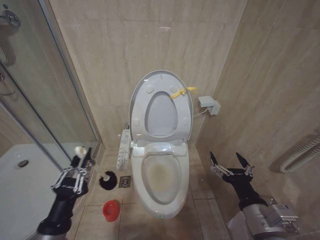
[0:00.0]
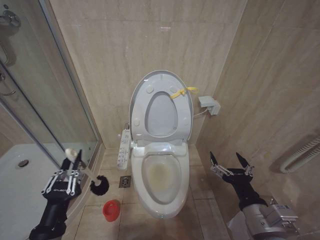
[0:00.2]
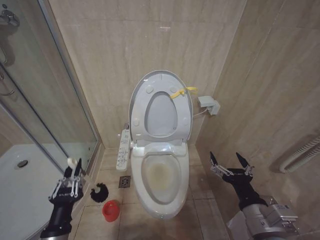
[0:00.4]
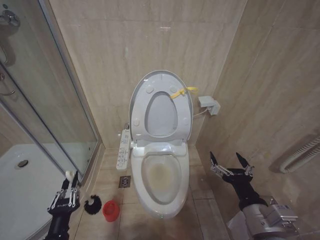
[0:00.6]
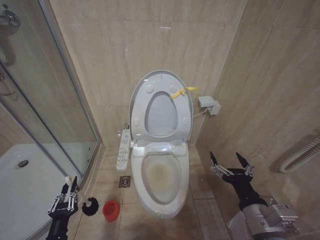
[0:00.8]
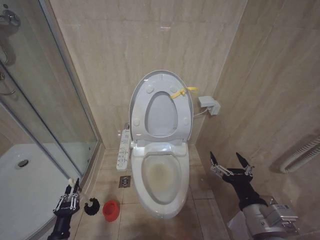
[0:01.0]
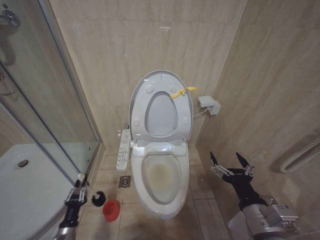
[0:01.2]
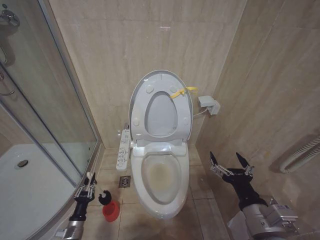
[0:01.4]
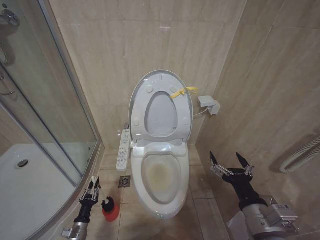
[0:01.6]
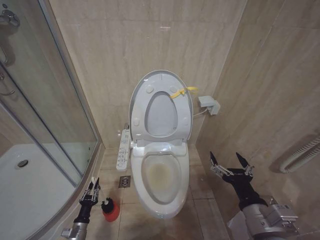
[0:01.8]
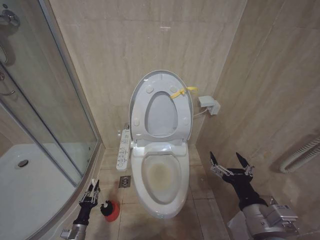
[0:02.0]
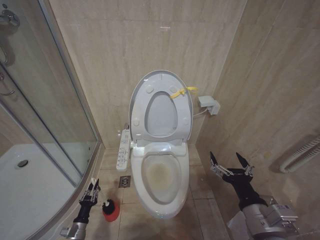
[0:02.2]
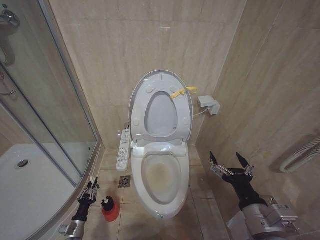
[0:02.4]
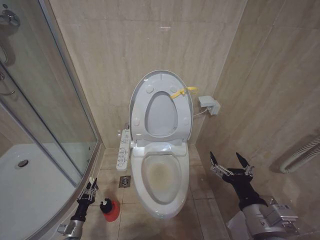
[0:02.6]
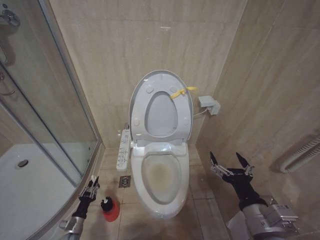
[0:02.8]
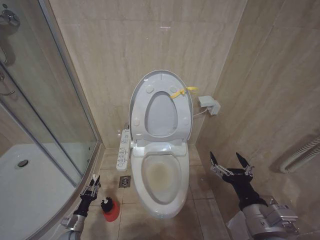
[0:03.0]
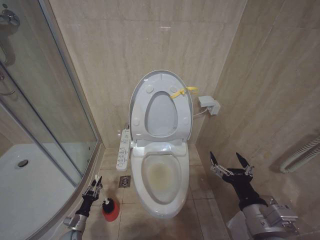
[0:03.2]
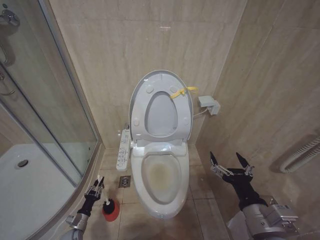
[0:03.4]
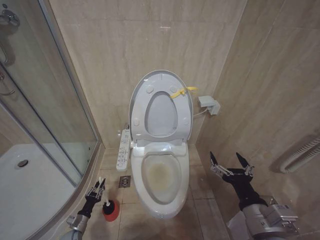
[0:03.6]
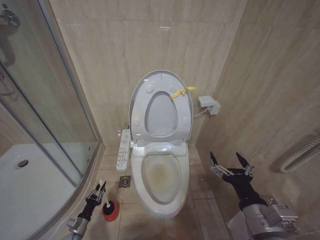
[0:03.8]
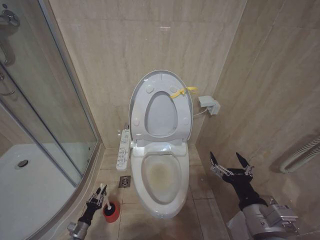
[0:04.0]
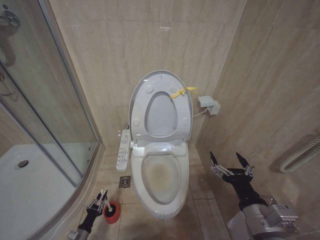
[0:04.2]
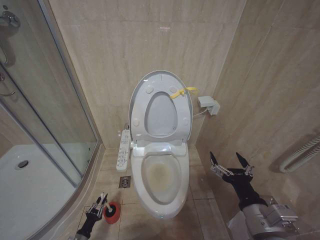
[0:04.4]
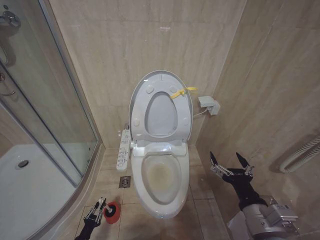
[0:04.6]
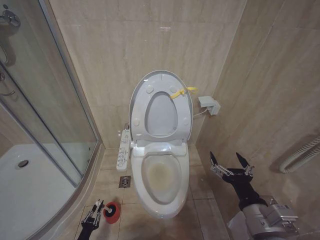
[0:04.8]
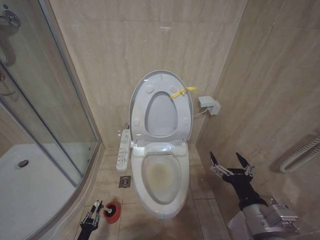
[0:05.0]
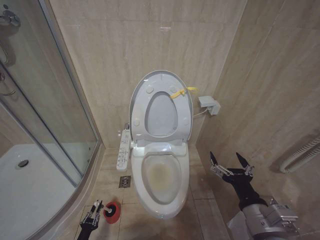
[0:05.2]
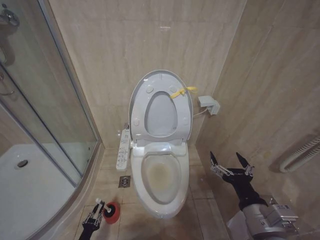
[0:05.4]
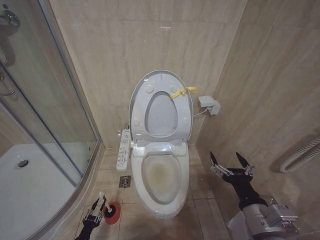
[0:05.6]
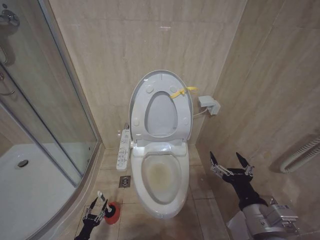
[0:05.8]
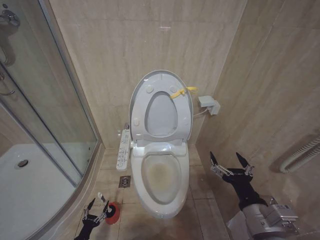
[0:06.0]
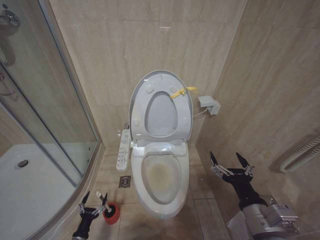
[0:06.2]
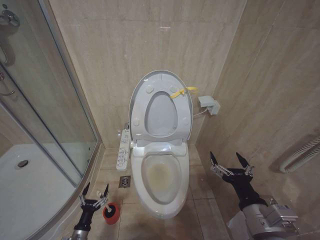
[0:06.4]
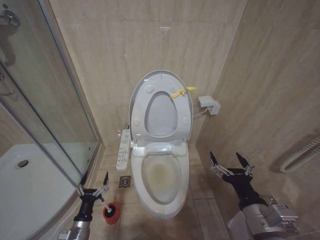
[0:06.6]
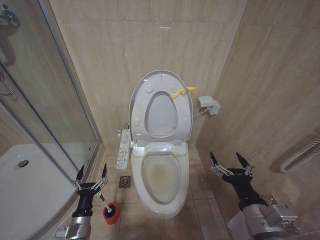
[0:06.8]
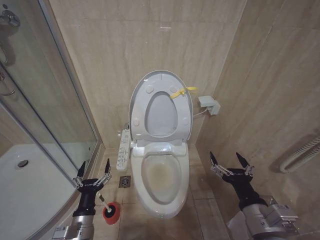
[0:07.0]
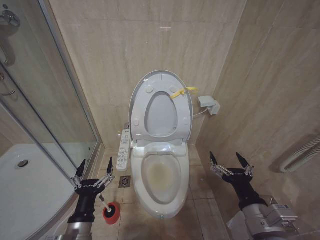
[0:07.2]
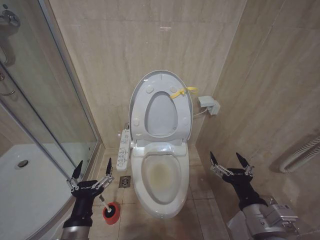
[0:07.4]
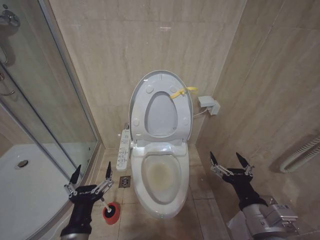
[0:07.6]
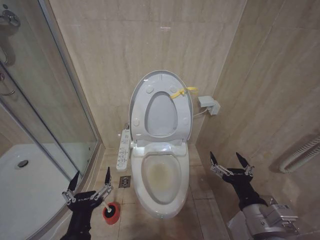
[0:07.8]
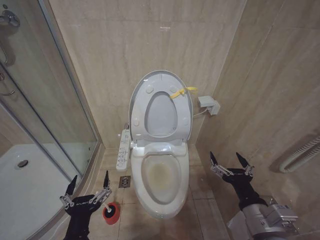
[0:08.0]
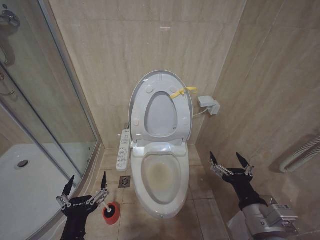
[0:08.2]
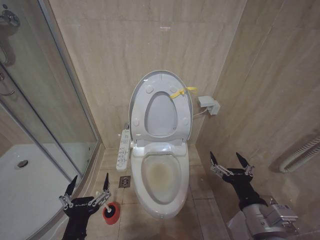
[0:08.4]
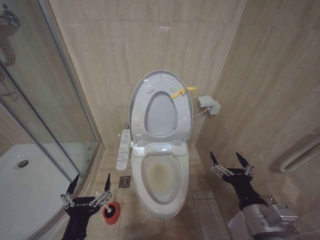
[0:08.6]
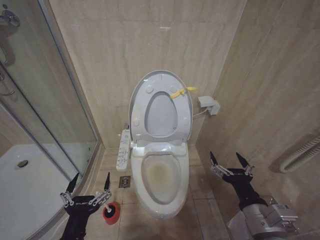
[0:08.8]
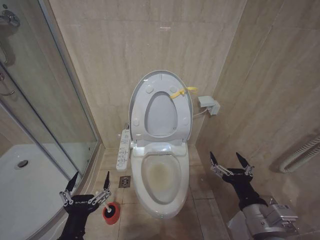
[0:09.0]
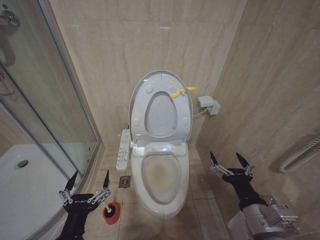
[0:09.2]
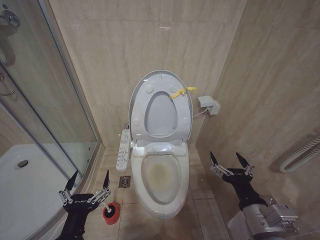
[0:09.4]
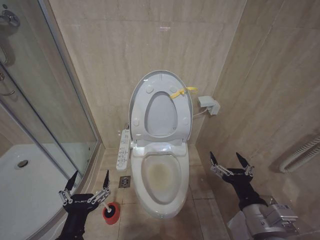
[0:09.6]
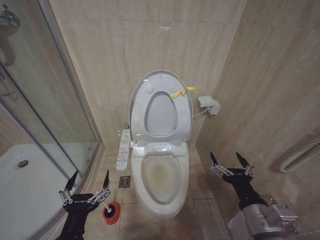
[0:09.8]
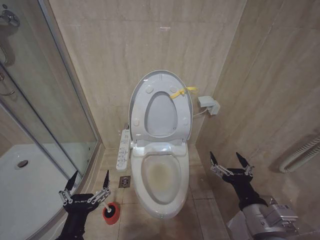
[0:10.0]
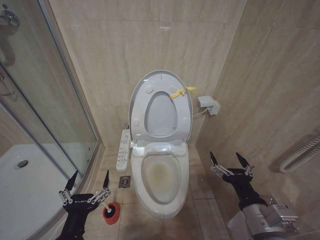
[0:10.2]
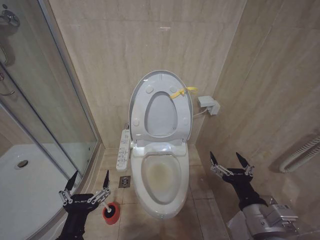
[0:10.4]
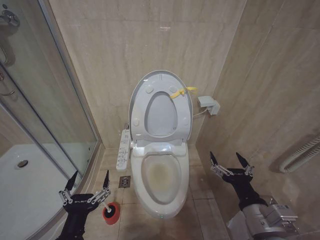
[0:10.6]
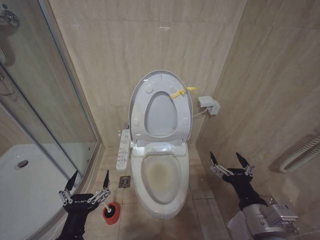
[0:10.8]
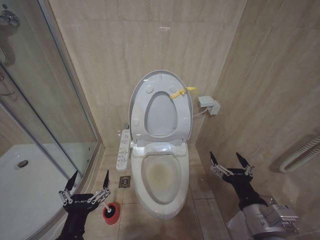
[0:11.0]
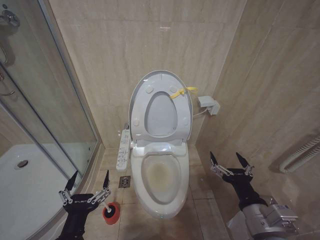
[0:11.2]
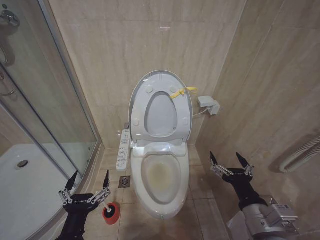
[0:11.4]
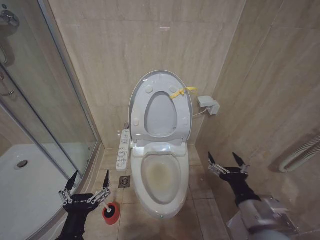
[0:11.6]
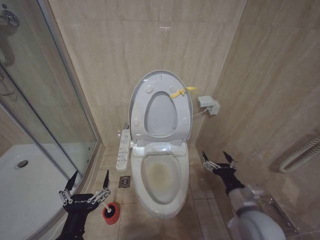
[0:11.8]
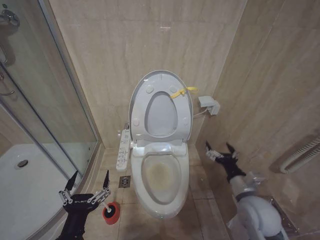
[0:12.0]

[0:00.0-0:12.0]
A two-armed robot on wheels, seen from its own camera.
Task of the whole recording: Open the toilet lid, clean the toilet bowl with a toilet brush, close the toilet lid, and flush.
0:00.0 to 0:01.6: The left gripper heads downward, covering roughly 30 cm.
0:01.6 to 0:03.0: The left gripper moves about 5 cm.
0:03.0 to 0:04.4: The left gripper heads backward, covering some 5 cm.
0:04.4 to 0:06.0: The left gripper opens its fingers.
0:06.0 to 0:07.6: The left gripper heads upward and to the right, covering roughly 40 cm, and opens its fingers.
0:07.6 to 0:09.0: The grippers move only a little.
0:09.0 to 0:10.4: The two grippers keep their place.
0:10.4 to 0:12.0: The right gripper goes roughly 10 cm forward and downward.

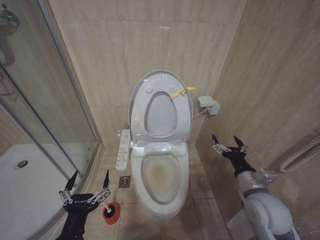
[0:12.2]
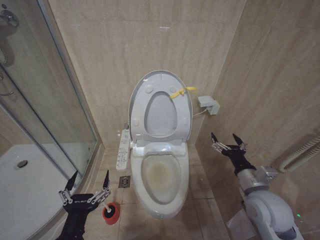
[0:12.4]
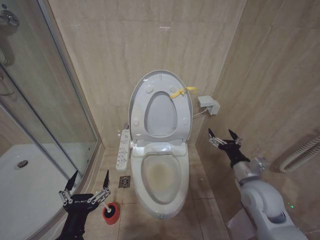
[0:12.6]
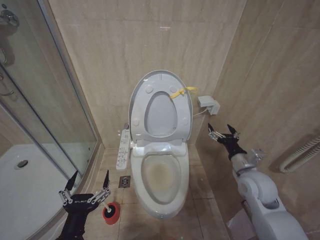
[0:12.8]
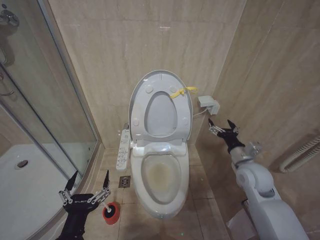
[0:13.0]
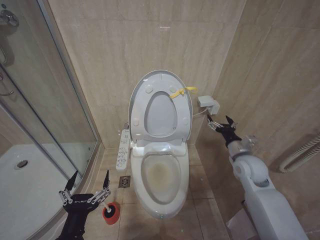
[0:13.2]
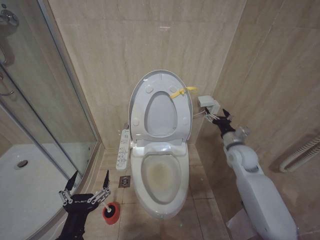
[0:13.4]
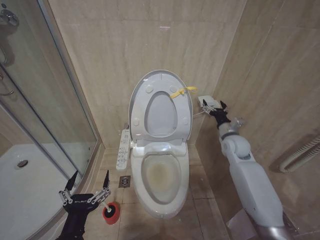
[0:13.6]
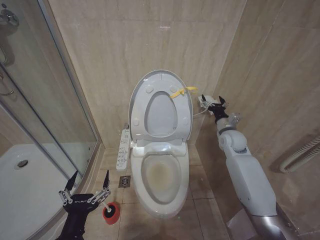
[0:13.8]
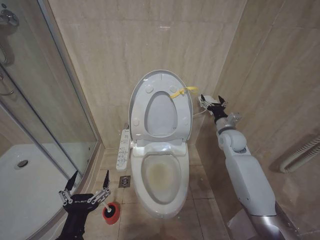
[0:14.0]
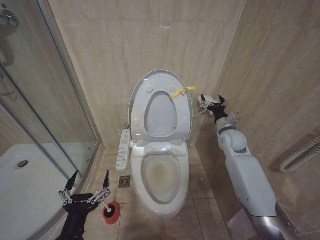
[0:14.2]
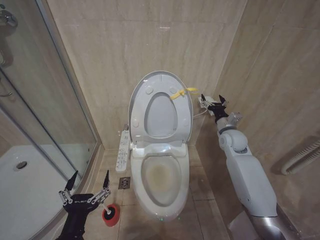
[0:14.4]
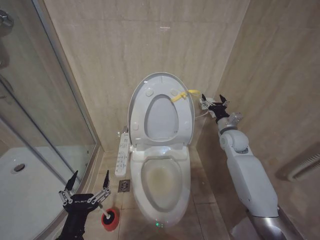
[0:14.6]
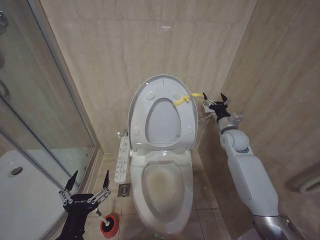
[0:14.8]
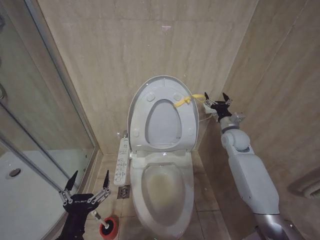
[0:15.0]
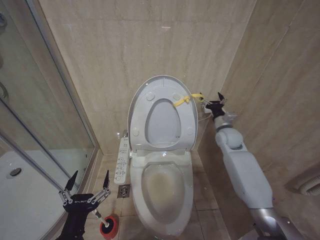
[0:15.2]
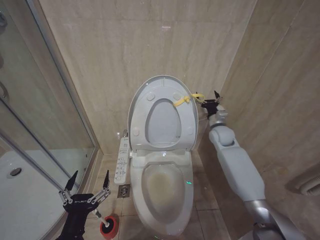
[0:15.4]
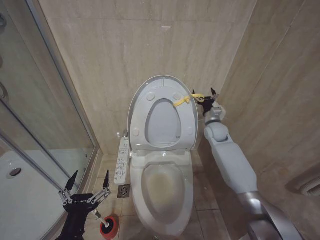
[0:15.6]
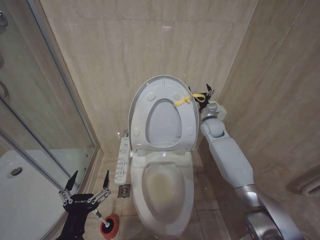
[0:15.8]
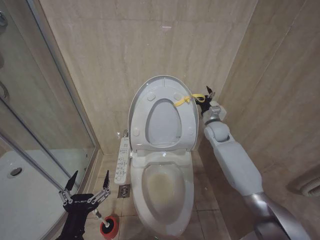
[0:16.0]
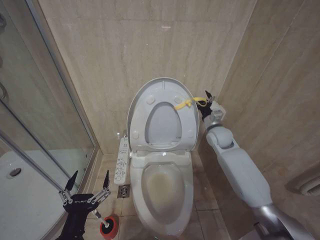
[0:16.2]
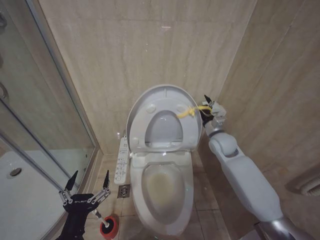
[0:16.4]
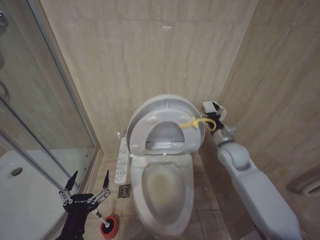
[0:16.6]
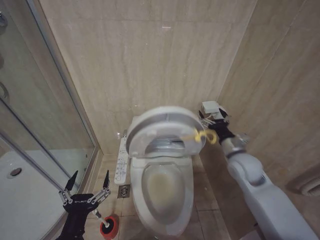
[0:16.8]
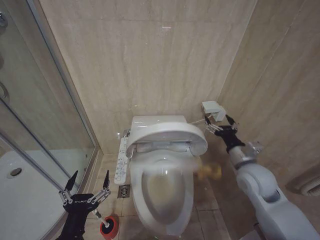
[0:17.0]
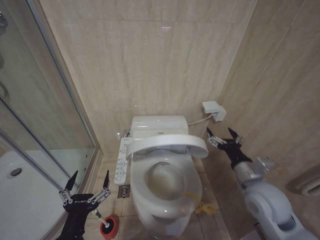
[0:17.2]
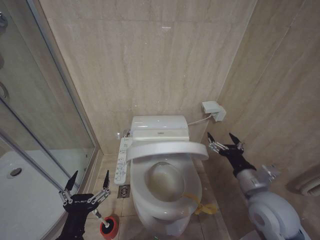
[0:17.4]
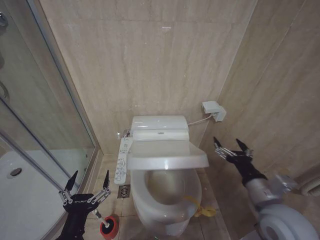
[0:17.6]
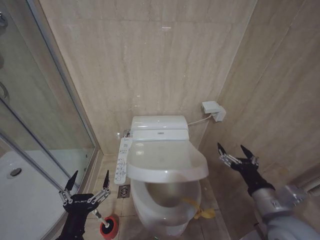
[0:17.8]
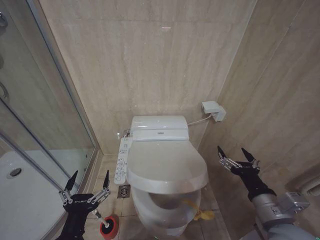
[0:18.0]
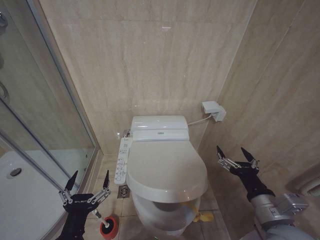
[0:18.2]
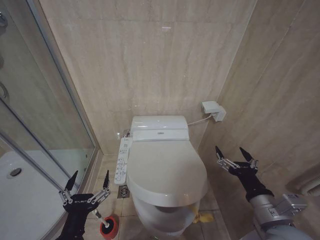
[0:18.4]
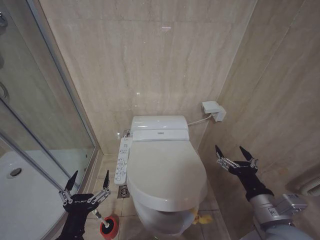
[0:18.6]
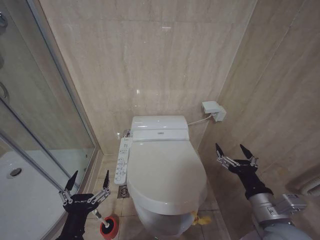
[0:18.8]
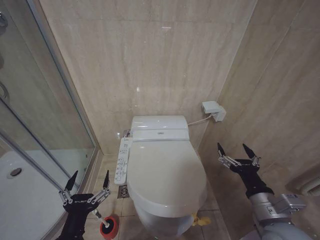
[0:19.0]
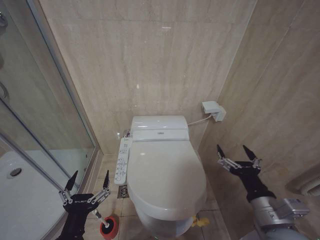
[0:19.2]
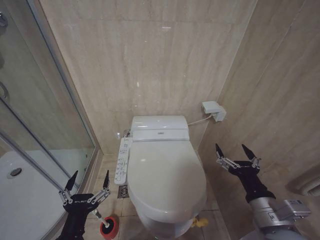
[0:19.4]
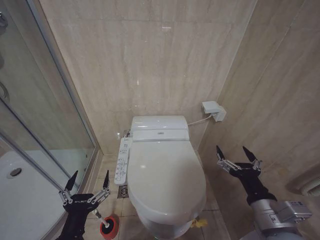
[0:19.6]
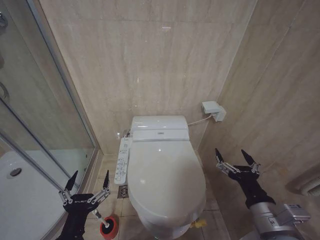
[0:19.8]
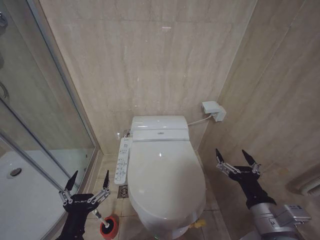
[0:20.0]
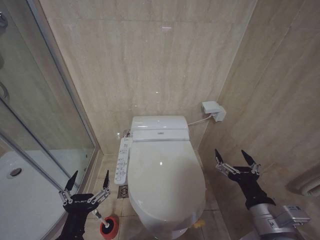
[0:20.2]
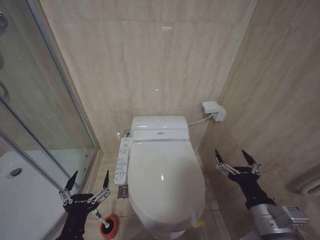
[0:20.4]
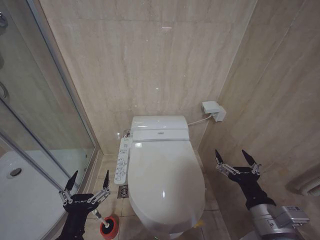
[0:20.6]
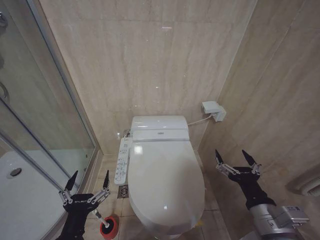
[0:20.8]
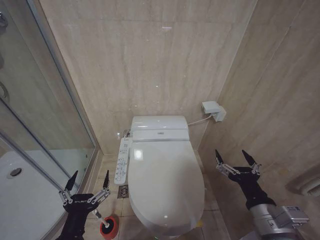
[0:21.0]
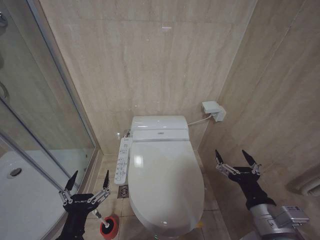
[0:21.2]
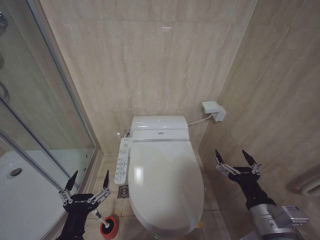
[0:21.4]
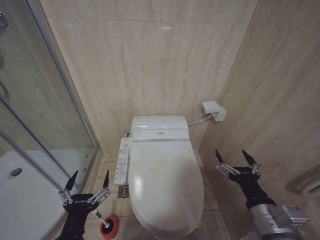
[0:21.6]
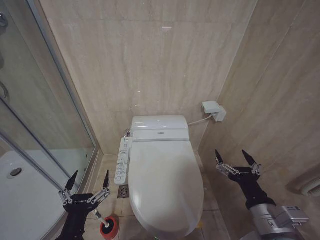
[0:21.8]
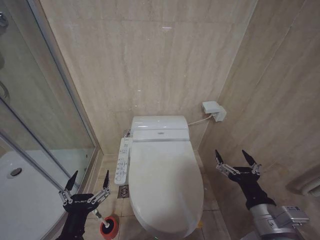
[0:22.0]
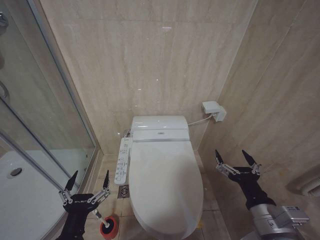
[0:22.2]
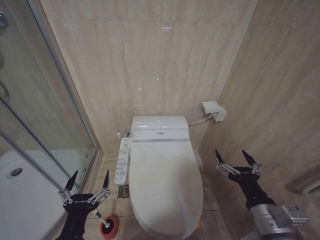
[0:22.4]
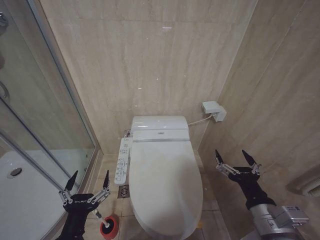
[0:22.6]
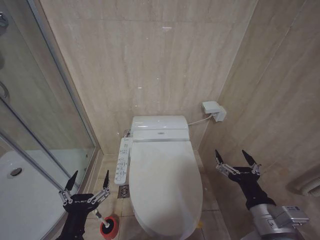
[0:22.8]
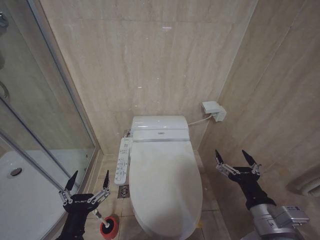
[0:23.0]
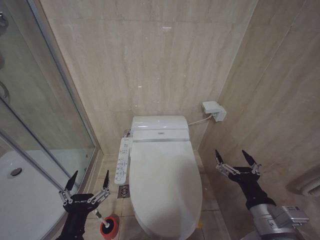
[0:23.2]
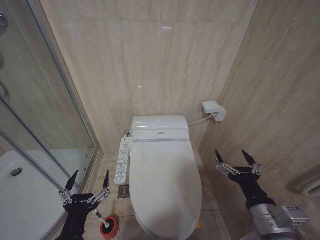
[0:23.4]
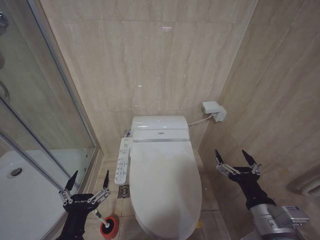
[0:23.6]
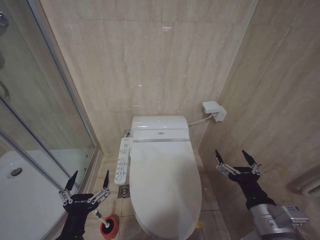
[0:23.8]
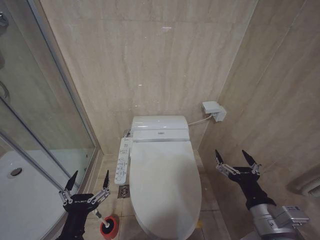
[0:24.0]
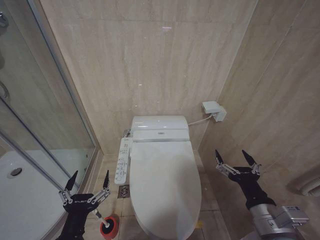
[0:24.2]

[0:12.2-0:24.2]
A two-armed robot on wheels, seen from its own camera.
Task of the whole recording: Open the toilet lid, clean the toilet bowl with a toilet brush, close the toilet lid, and flush.
0:12.2 to 0:13.8: The right gripper moves forward, some 25 cm.
0:13.8 to 0:15.2: There are only small adjustments of the grippers.
0:15.2 to 0:16.6: The right gripper shifts about 5 cm to the left.
0:16.6 to 0:18.2: The right gripper is displaced backward by some 30 cm.
0:18.2 to 0:19.8: The grippers make only small movements.
0:19.8 to 0:24.2: Neither gripper changes place.
